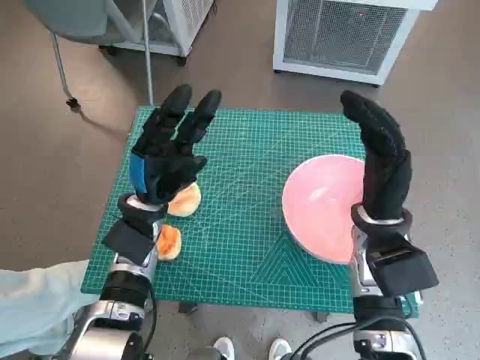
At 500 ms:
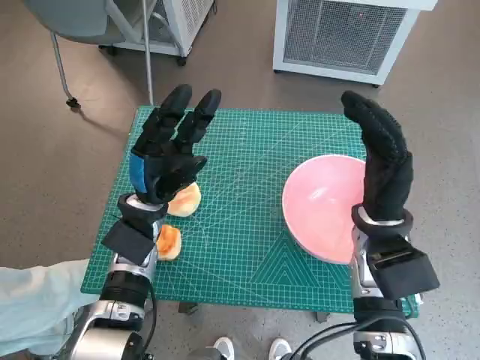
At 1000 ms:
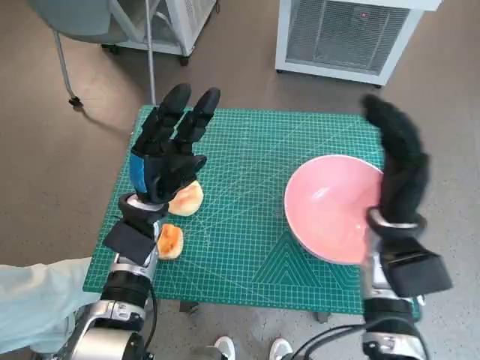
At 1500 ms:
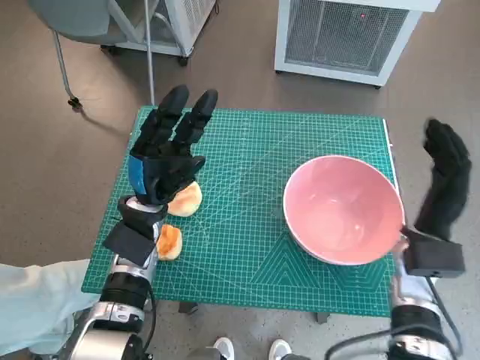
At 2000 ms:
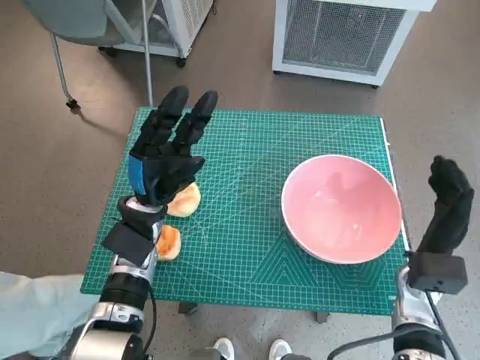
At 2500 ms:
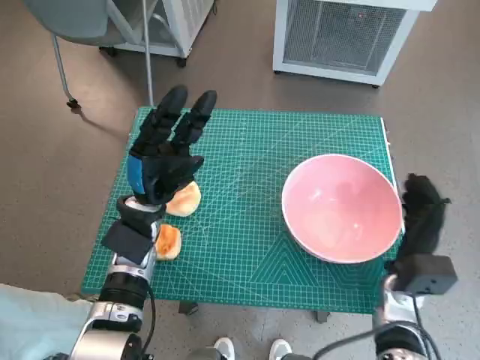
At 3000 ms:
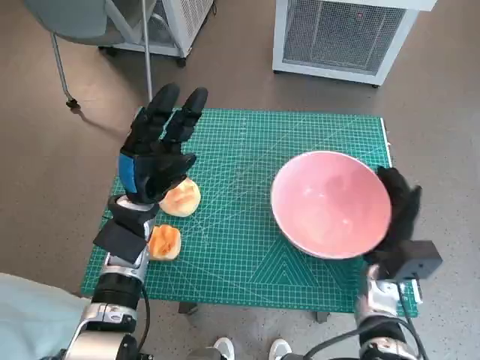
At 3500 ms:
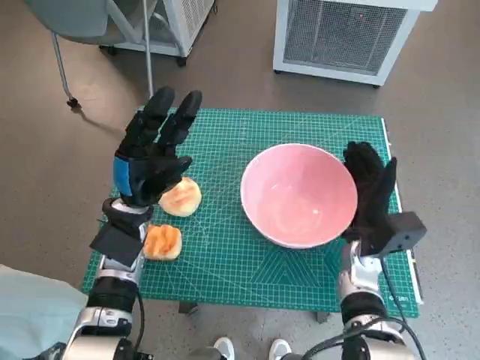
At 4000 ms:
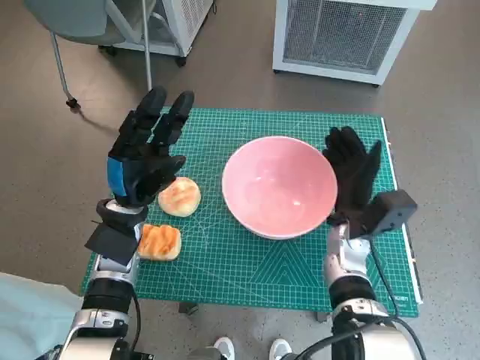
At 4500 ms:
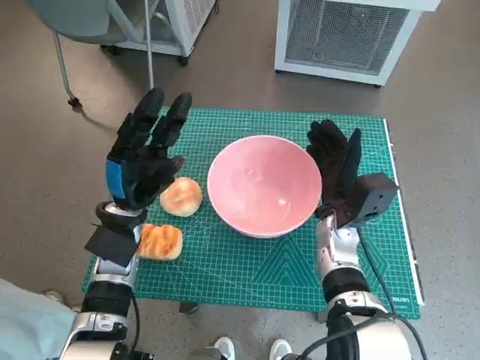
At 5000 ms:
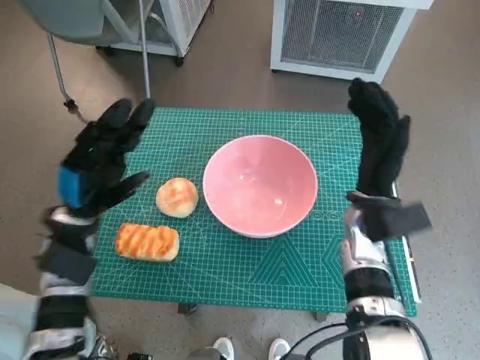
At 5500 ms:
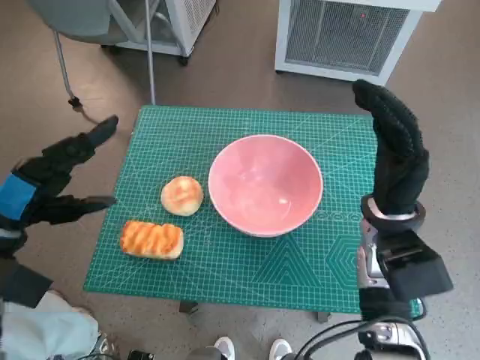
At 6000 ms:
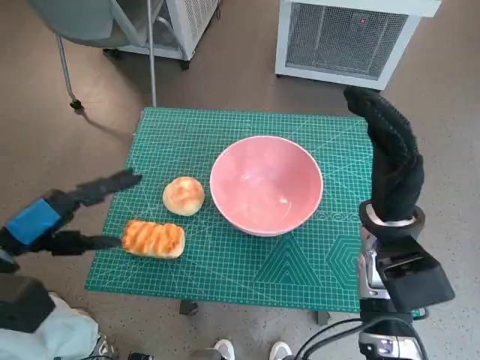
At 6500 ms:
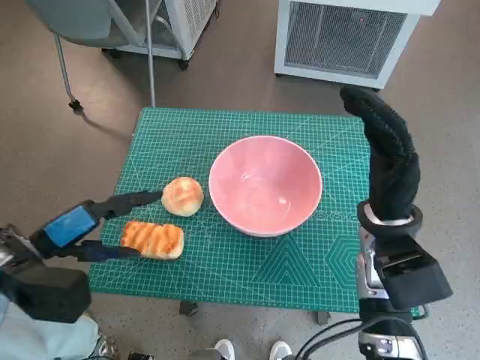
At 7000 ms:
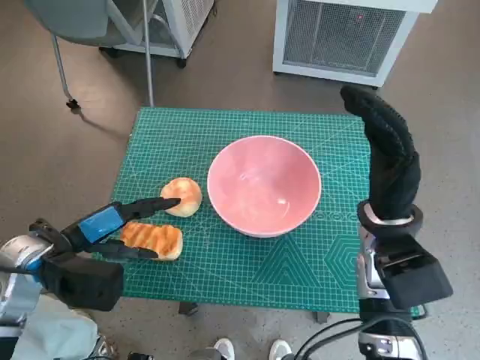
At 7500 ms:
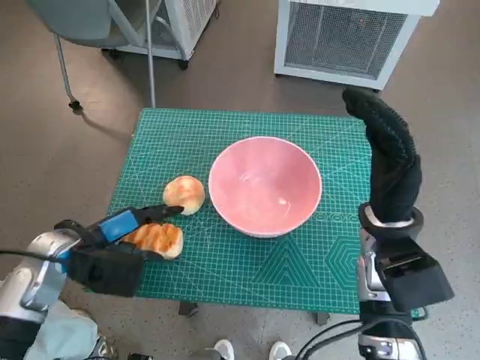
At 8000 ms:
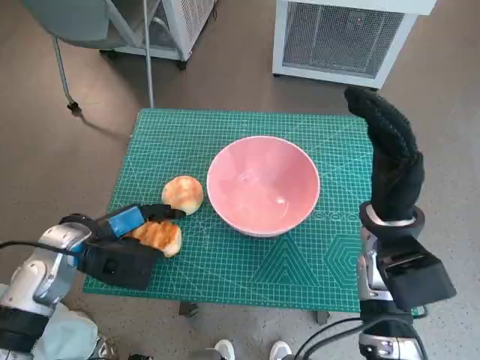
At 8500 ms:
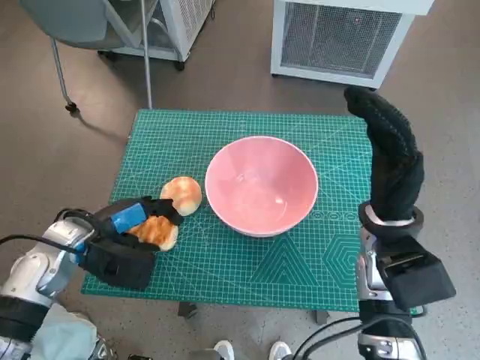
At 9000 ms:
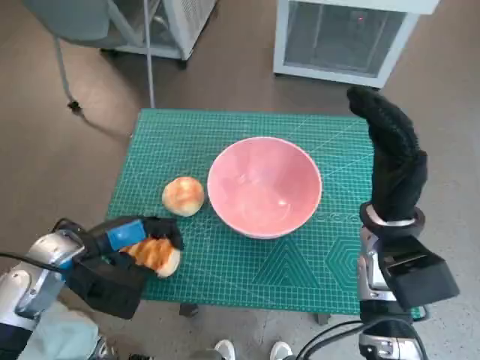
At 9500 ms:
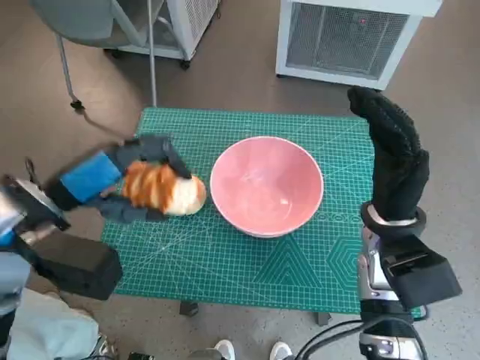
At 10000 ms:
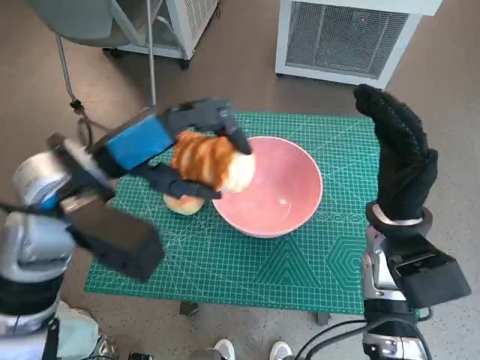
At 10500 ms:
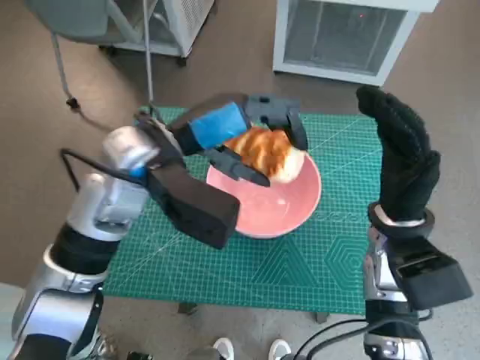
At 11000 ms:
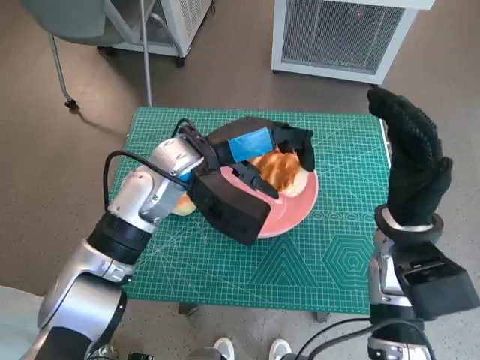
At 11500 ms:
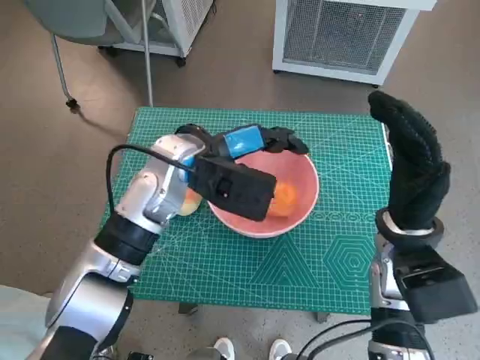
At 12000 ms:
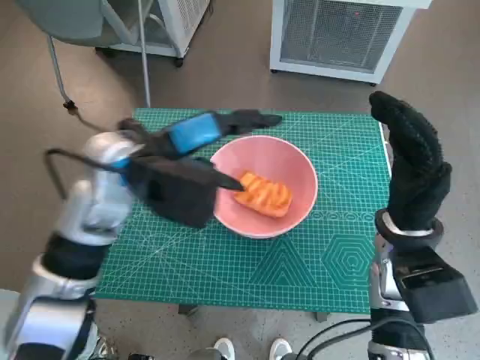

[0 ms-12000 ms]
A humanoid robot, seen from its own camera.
Task of the whole recording: Push the bowl to the center of the table and put the bread into the bowl.
Step, 0 ms to 4500 ms: Move the pink bowl to the center of table with right hand.
Step, 5000 ms to 8000 ms: Grasp the long bread with left hand.
Step, 8500 ms to 11500 ms: Place the long bread in pink bowl with left hand.
2000 ms to 4000 ms: The right hand is displaced to the left and forward by some 10 cm.
4000 ms to 6000 ms: The left hand moves to the left, backward and upward, some 15 cm; the right hand moves upward, roughly 10 cm.
6000 ms to 8000 ms: The left hand moves downward, to the right and forward, roughly 10 cm.
8000 ms to 10000 ms: The left hand heads upward and to the right, covering about 15 cm.
10000 ms to 12000 ms: The left hand shifts approximately 5 cm forward.

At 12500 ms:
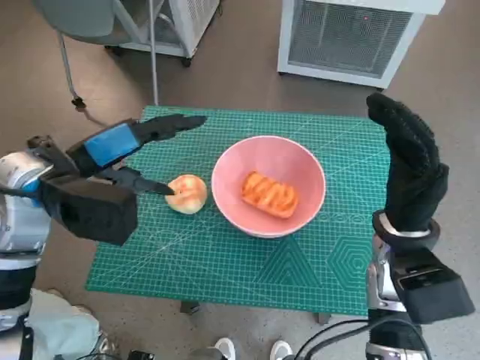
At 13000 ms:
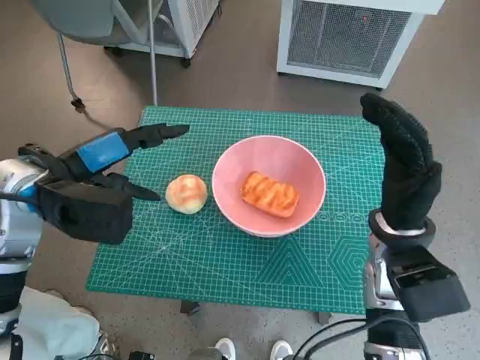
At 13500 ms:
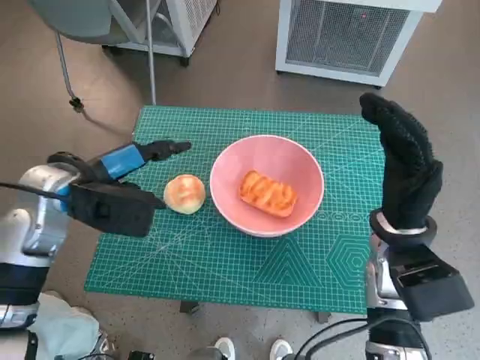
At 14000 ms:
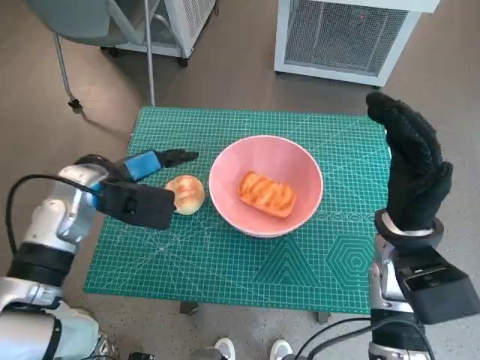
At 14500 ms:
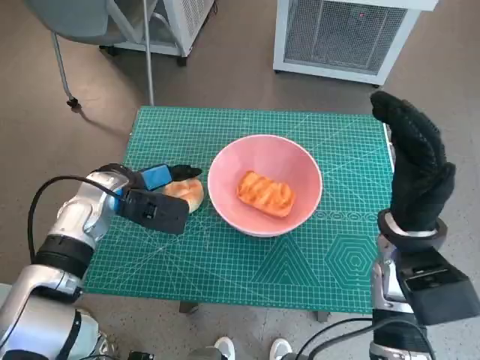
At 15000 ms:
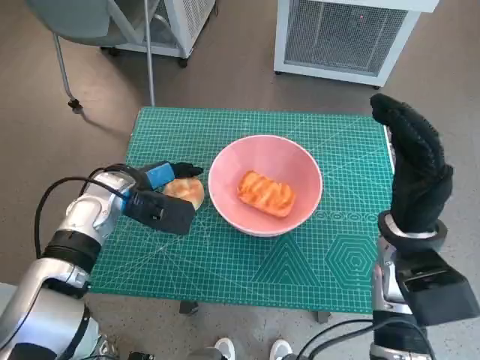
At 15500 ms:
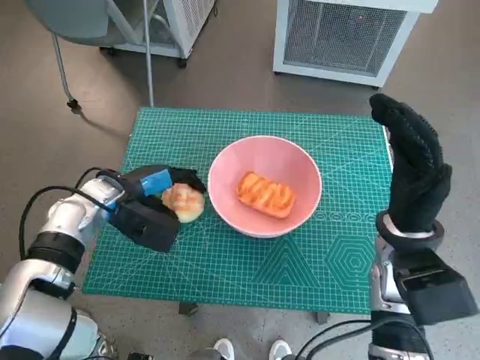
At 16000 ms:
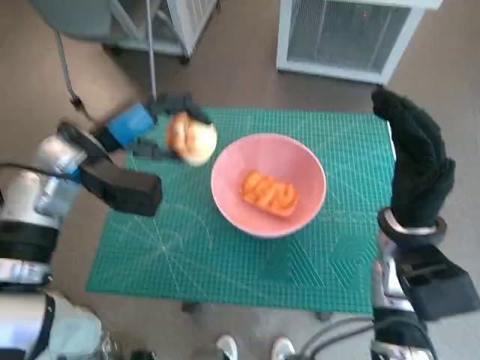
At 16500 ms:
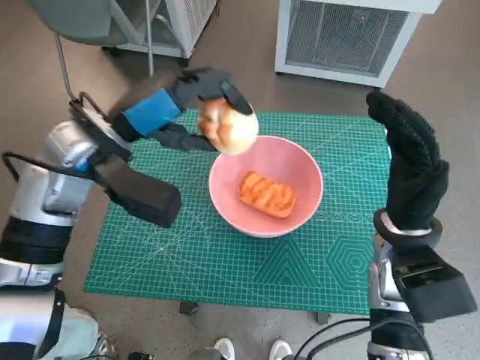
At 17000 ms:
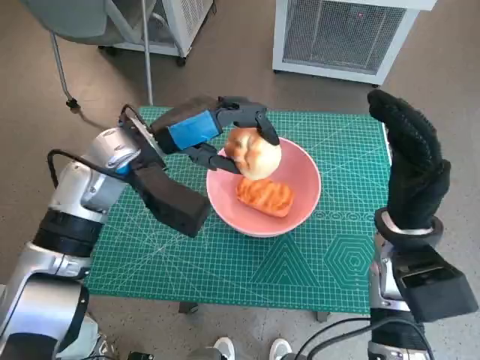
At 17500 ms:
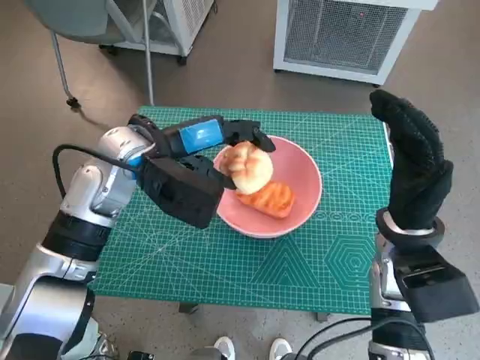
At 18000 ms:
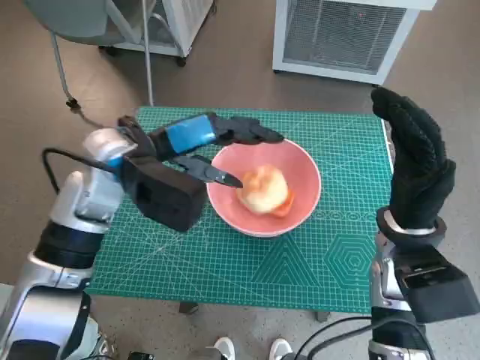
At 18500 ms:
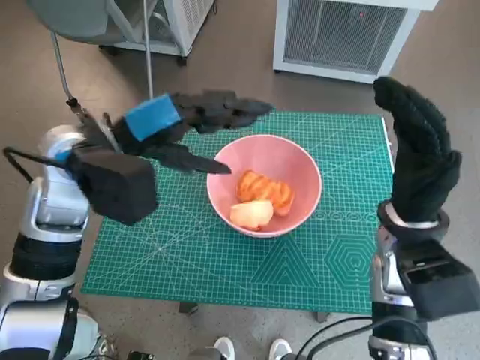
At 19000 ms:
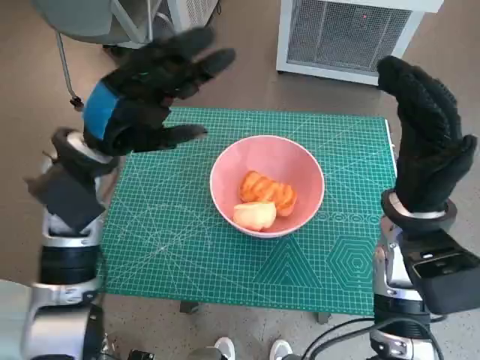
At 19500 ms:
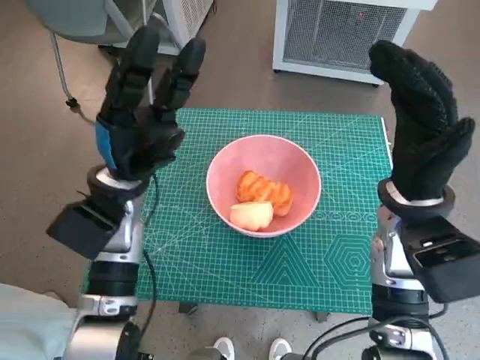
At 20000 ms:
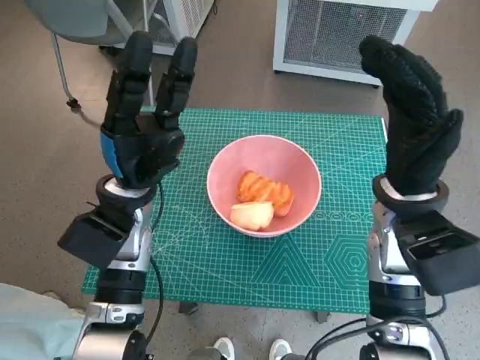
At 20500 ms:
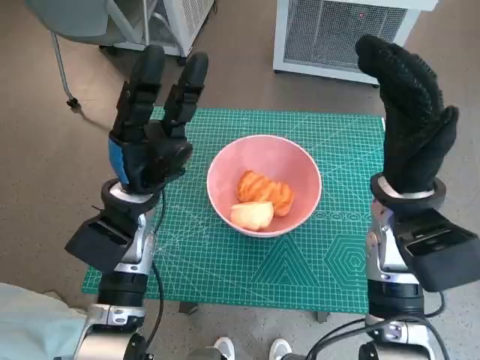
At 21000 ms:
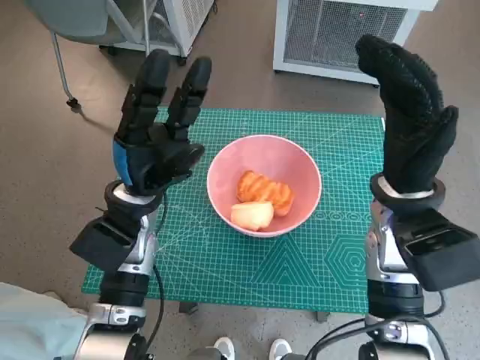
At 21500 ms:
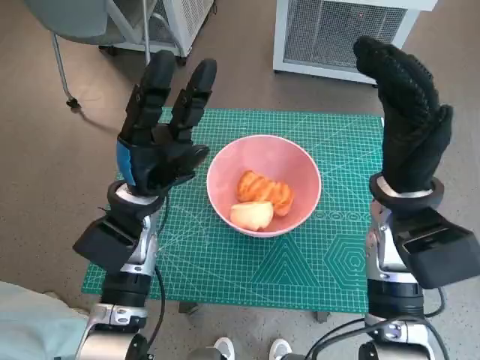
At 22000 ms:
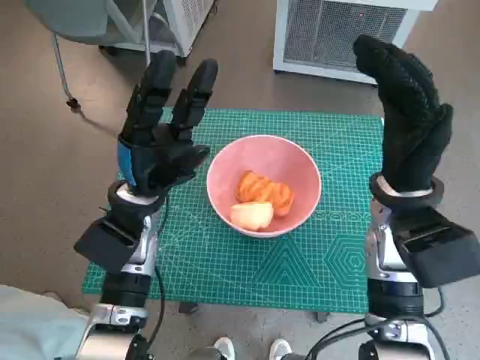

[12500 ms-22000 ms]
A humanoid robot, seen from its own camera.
Task of the whole recording: Push the bowl to the center of the table and put the bread into the bowl.
Step, 12500 ms to 15000 ms: Grasp the round bread with left hand.
Step, 15500 ms to 18000 ms: Place the round bread in pink bowl with left hand.
12500 ms to 14500 ms: The left hand heads downward, covering roughly 10 cm.
14500 ms to 16500 ms: The left hand moves upward, about 10 cm.
18000 ms to 20000 ms: The left hand travels downward by approximately 5 cm.
20000 ms to 22000 ms: The hands move only a little.

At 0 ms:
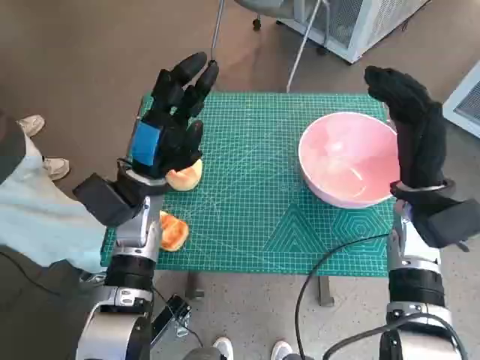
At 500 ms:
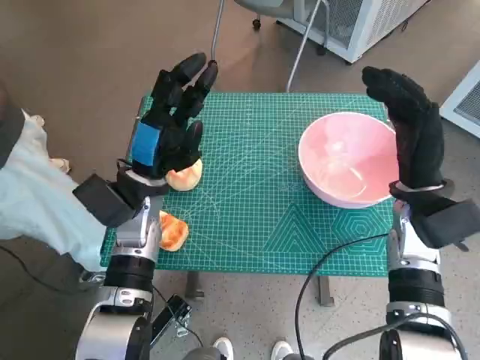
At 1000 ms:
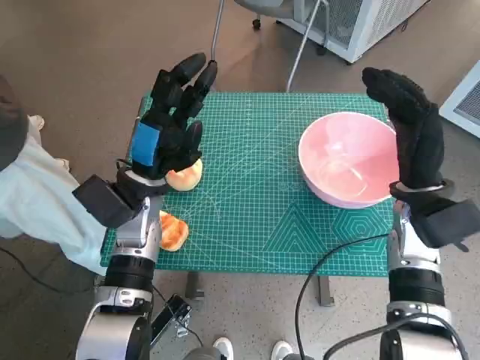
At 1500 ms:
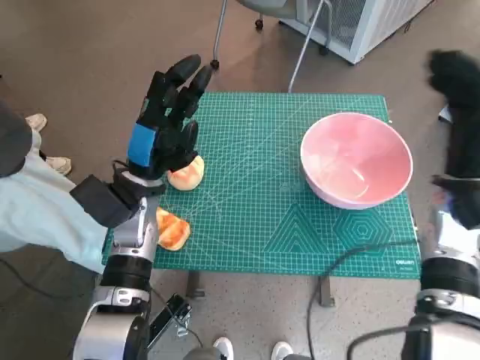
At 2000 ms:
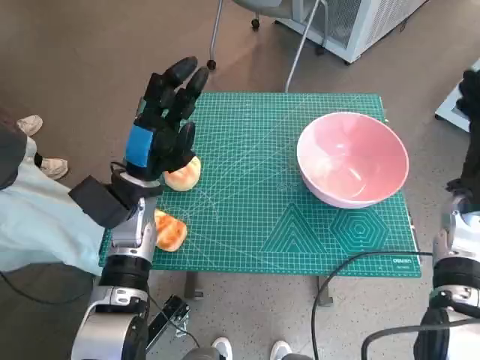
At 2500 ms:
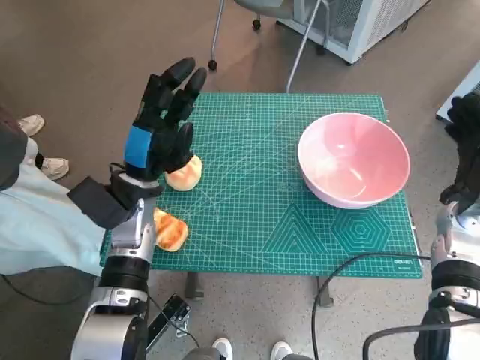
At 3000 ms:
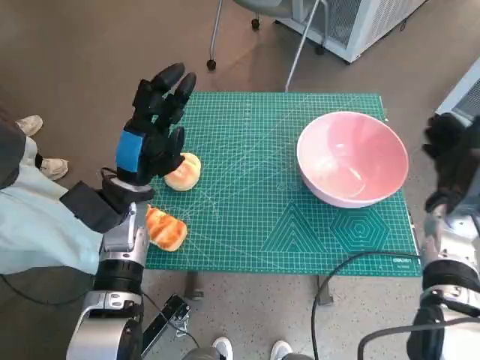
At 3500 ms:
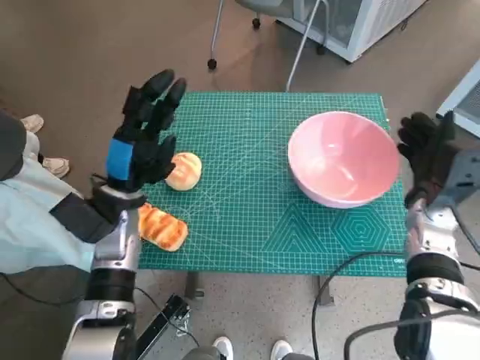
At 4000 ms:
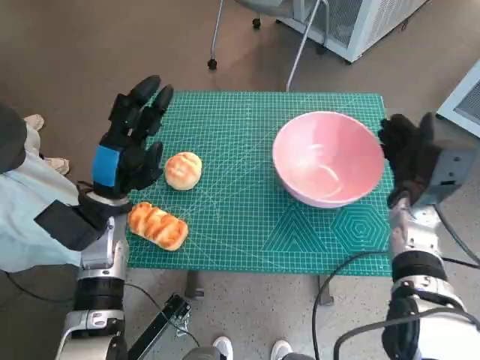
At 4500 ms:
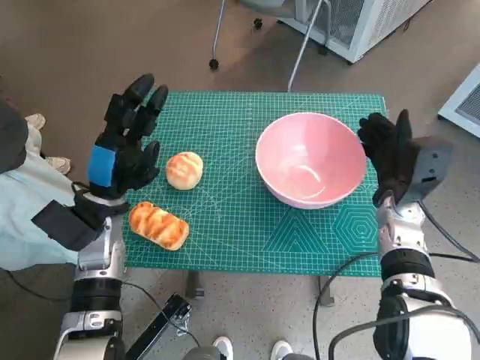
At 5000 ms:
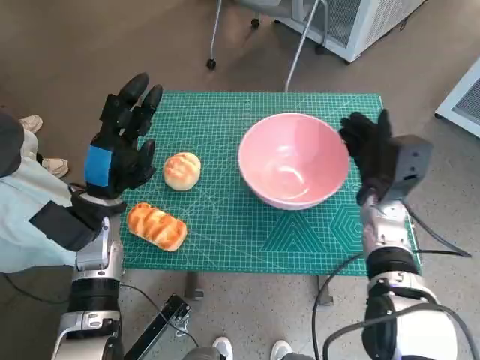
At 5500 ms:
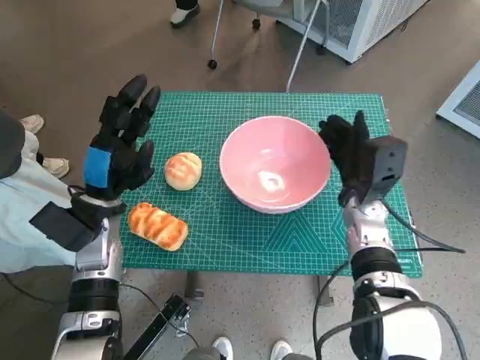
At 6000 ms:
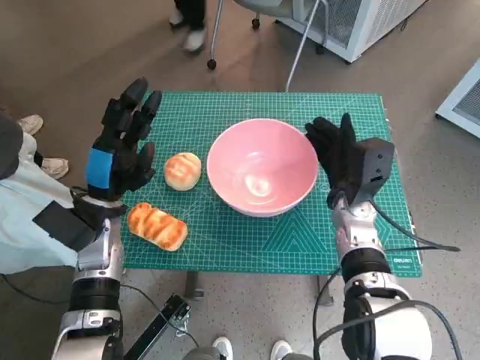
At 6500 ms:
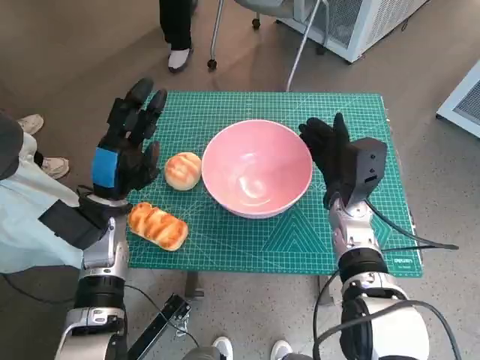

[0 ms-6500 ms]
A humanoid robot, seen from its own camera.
Task of the whole recording: Push the bowl to the center of the table and put the bread into the bowl.
2000 ms to 4500 ms: The left hand ends up roughly 5 cm from where it was. The right hand shifts approximately 5 cm to the left.
4500 ms to 6500 ms: The right hand is displaced to the left by roughly 5 cm.
